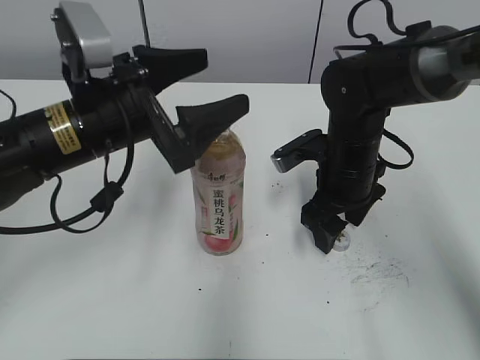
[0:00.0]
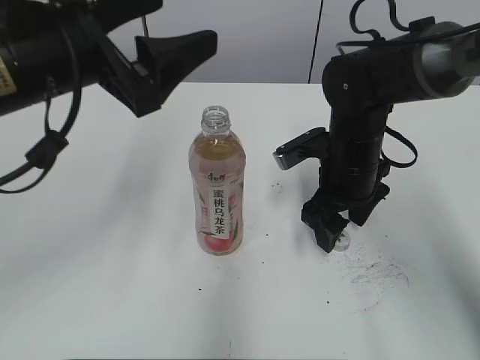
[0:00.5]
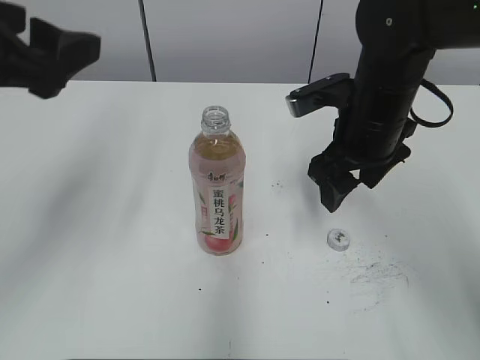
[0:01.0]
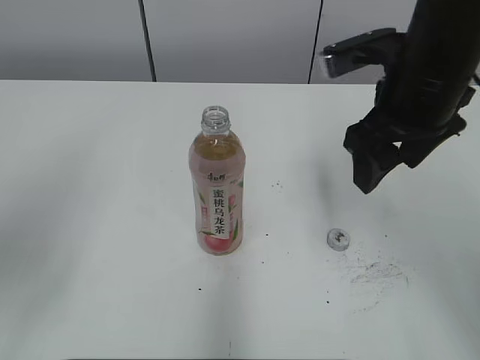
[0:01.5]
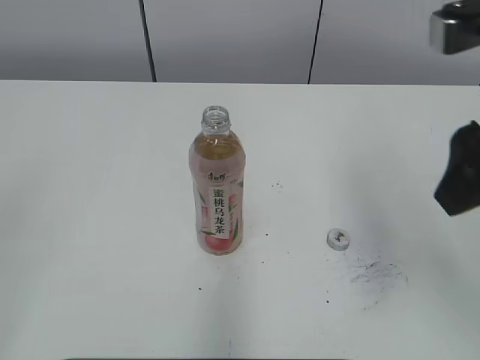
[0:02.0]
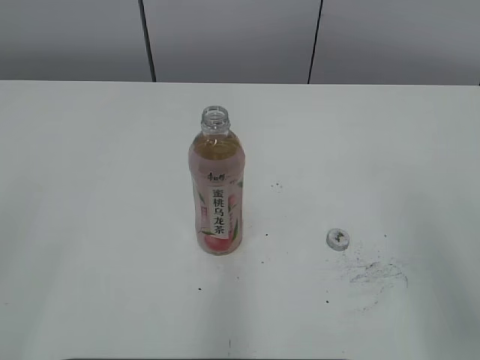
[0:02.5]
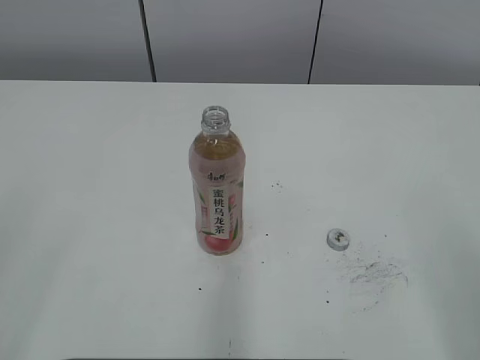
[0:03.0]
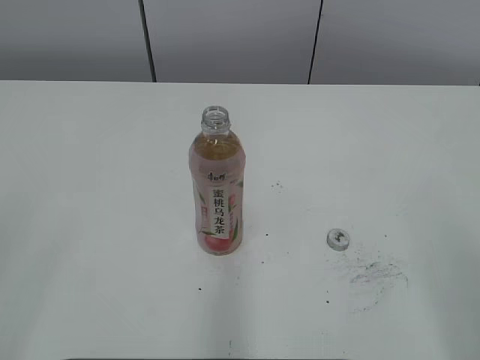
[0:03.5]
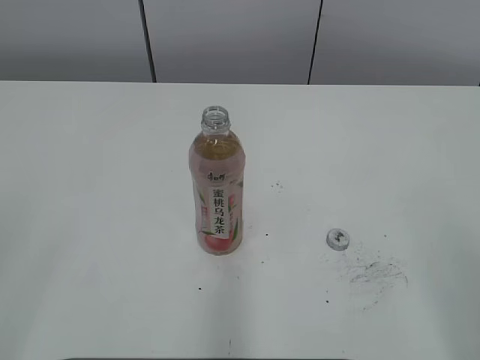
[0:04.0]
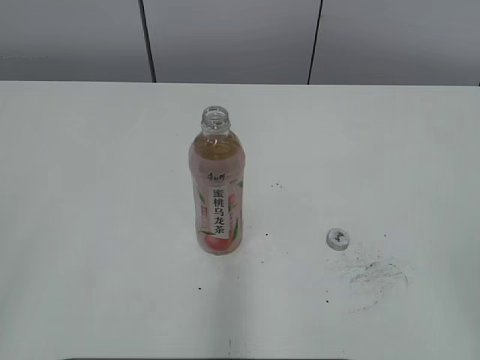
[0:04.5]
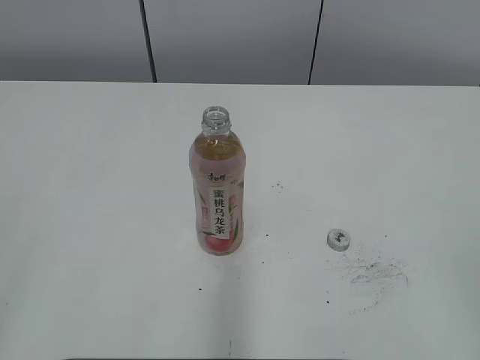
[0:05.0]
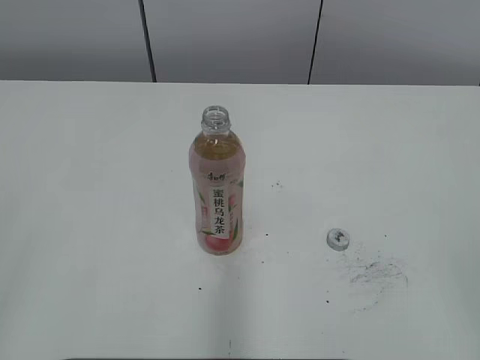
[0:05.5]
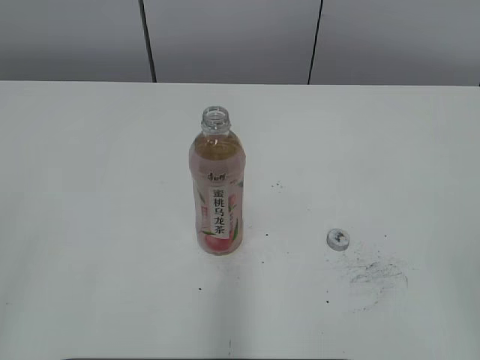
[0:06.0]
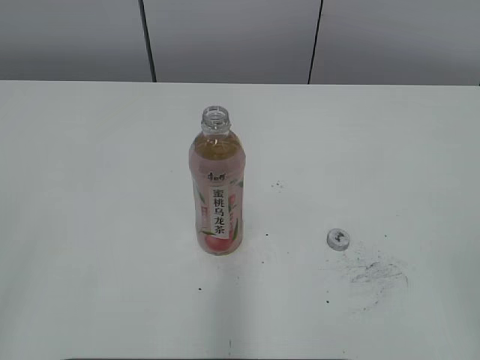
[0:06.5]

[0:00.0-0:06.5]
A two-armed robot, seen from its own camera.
0:00.0 to 0:02.0: The left gripper travels backward, to the left and upward by about 35 cm; the right gripper heads upward and backward, covering some 25 cm.
0:02.0 to 0:04.5: The right gripper is displaced backward and to the right by about 25 cm.
